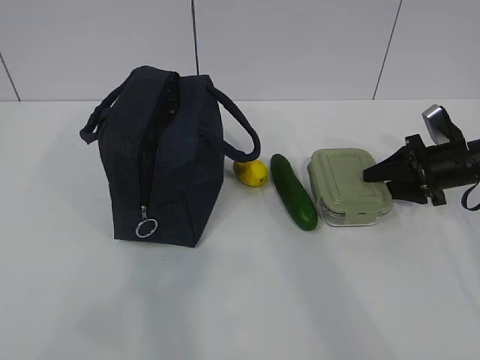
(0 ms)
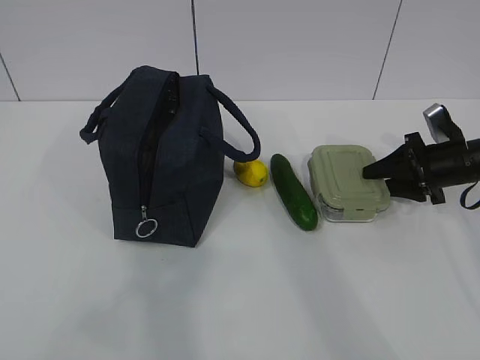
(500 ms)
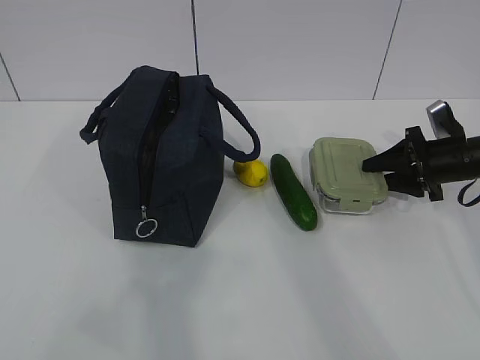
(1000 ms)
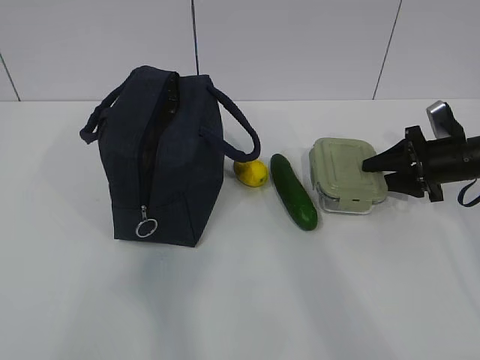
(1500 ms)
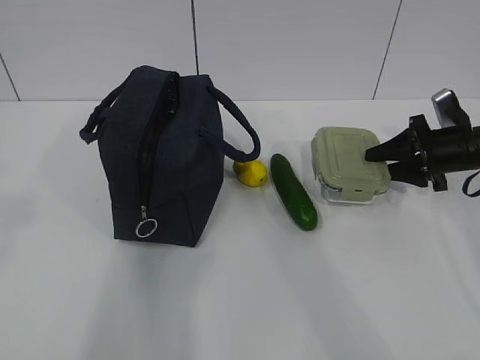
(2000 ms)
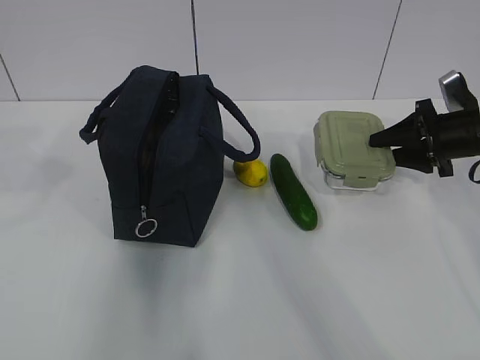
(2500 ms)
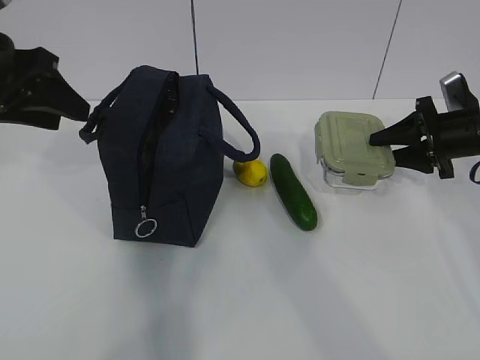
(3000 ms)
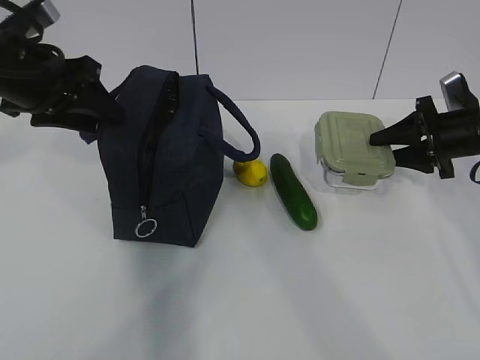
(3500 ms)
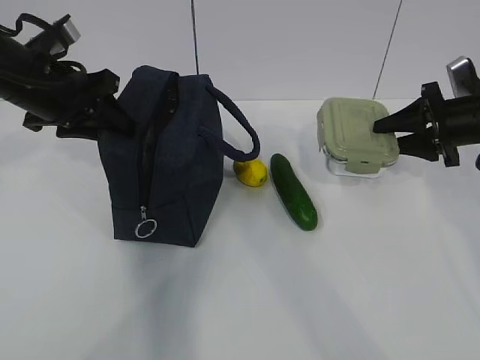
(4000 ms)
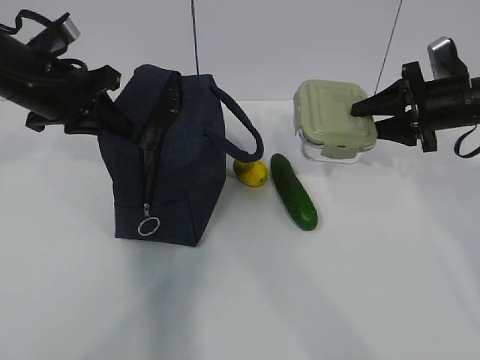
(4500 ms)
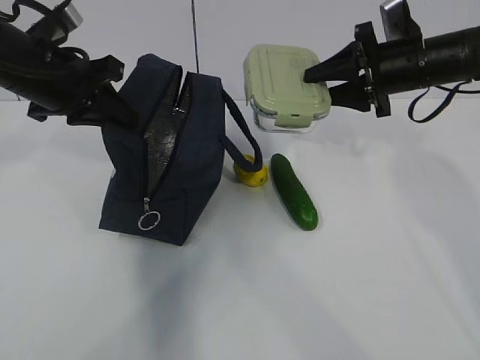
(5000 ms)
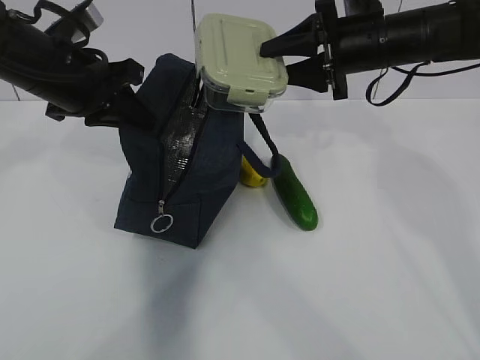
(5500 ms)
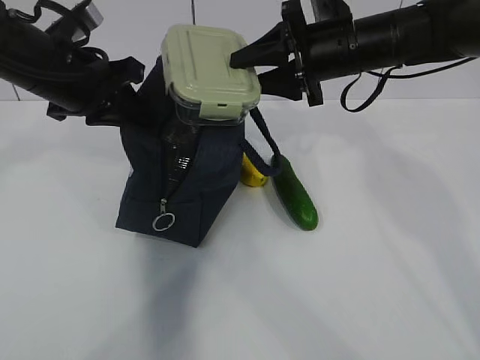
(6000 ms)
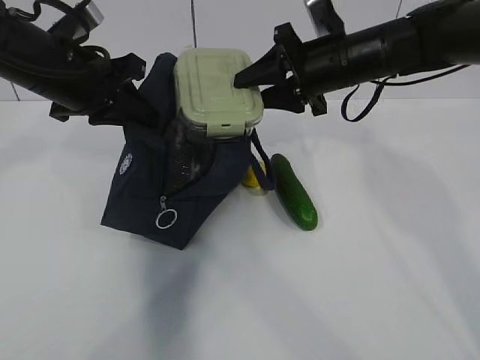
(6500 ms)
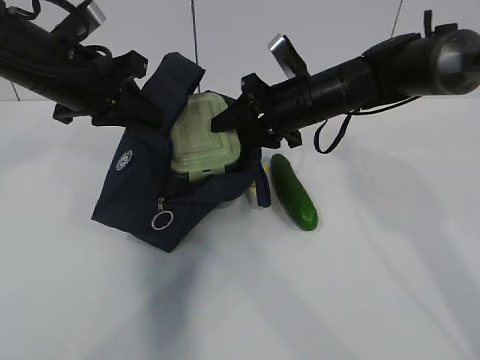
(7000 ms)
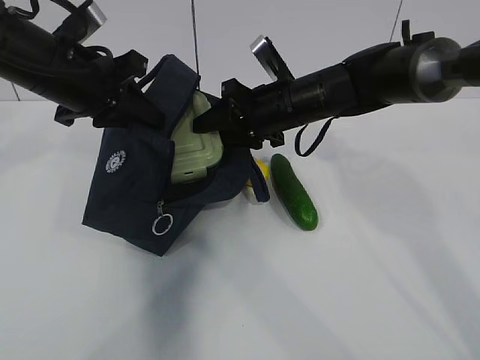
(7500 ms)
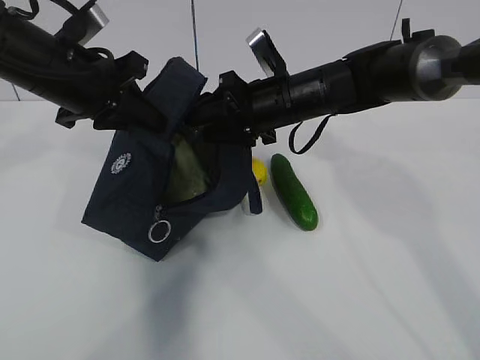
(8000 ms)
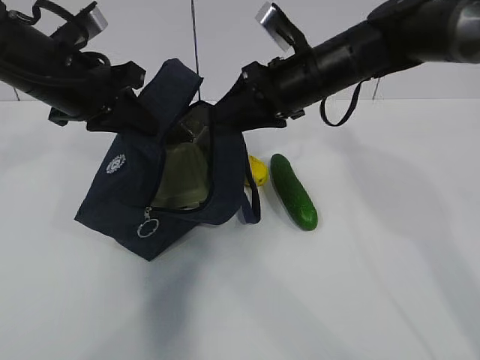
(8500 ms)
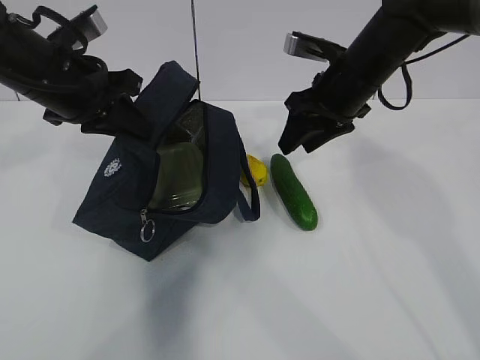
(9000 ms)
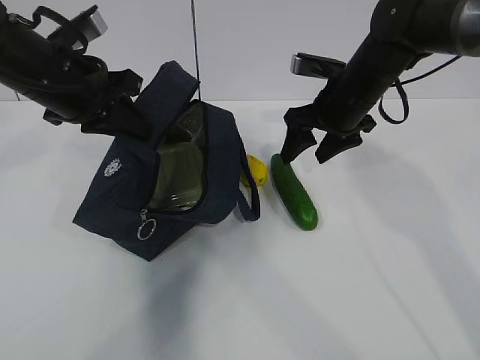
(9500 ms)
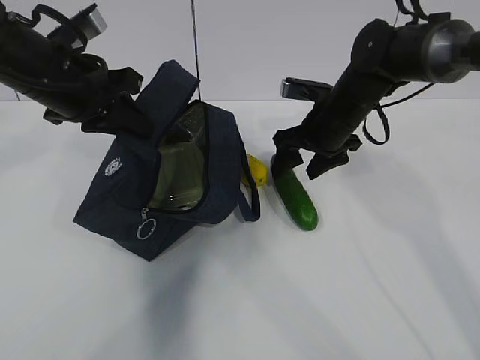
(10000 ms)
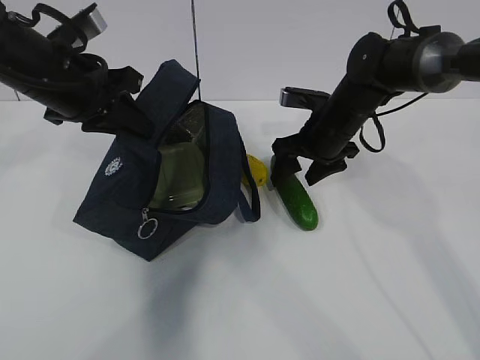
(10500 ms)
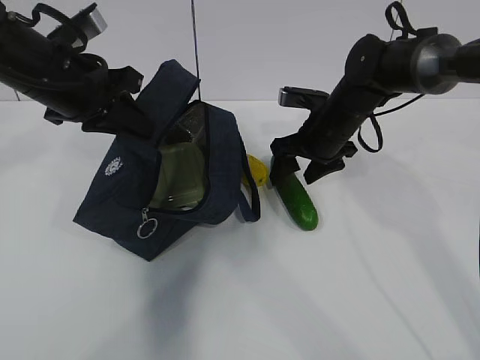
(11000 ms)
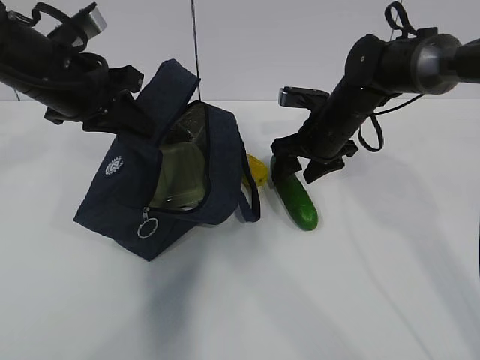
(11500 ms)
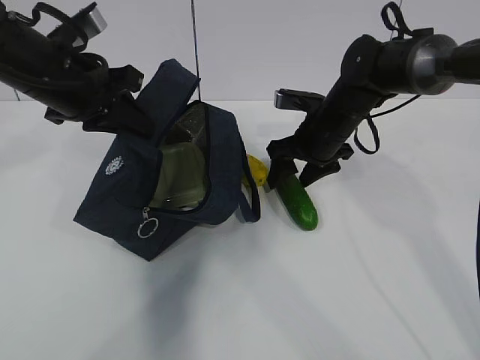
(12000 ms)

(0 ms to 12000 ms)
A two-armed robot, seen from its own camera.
Step, 0 ms - 2500 ms: Grab the lunch bag with your left hand.
Step, 3500 ms - 4500 ms: Place it into the bag with your right hand.
Step, 5000 ms - 9000 ms: Grab the cucumber with your right hand.
Step, 9500 ms - 11000 ms: Place it into the bag with your right hand.
2000 ms - 4000 ms: The left gripper shifts approximately 30 cm forward and downward.
4000 ms - 6000 ms: The left gripper closes its fingers. Meanwhile the right gripper shifts roughly 20 cm to the left and upward.
6000 ms - 8000 ms: The right gripper goes roughly 10 cm downward and to the left.
8000 ms - 10000 ms: The right gripper moves to the right, about 5 cm.
10000 ms - 12000 ms: There are only small adjustments of the grippers.

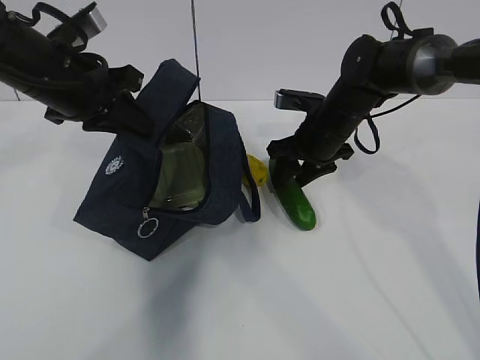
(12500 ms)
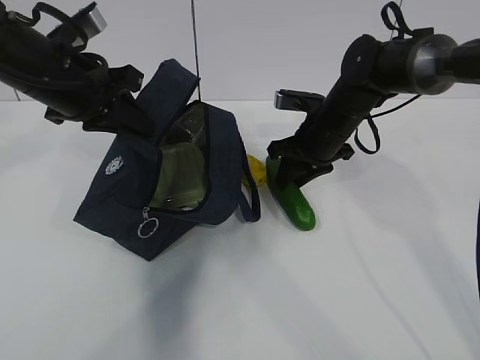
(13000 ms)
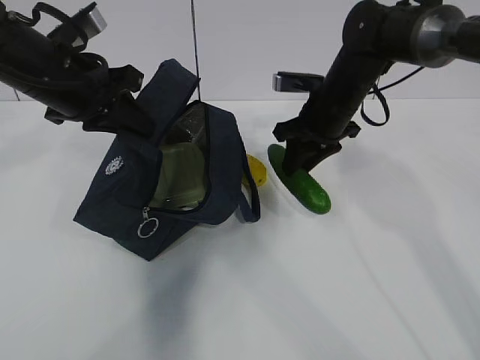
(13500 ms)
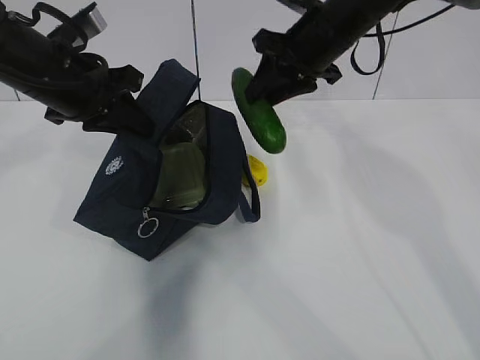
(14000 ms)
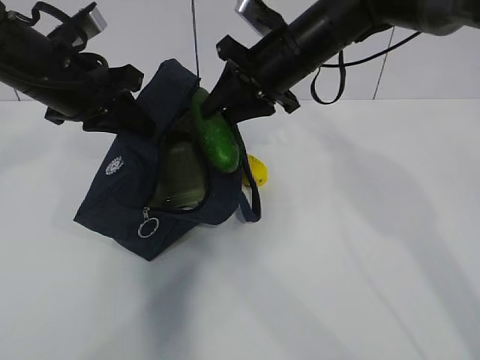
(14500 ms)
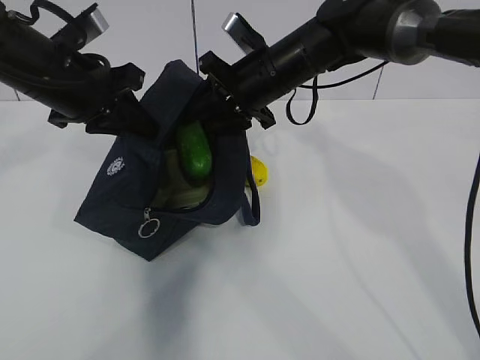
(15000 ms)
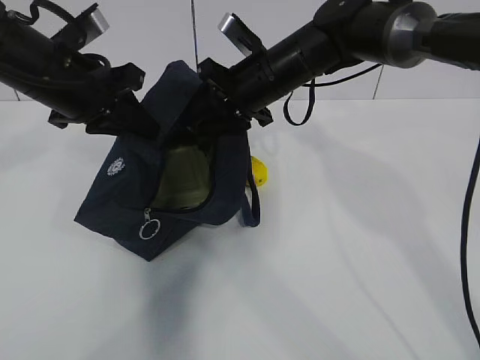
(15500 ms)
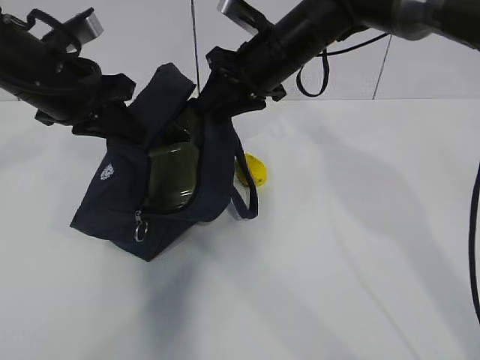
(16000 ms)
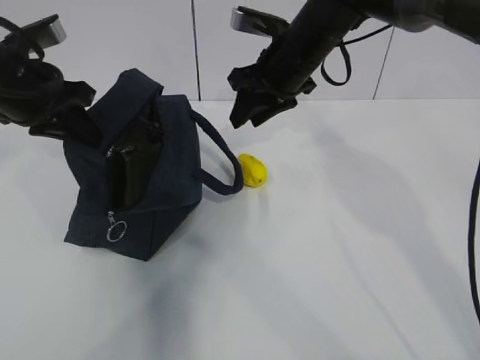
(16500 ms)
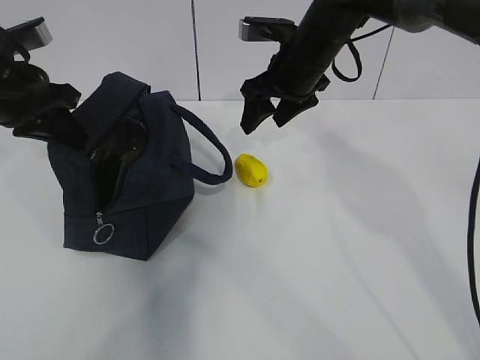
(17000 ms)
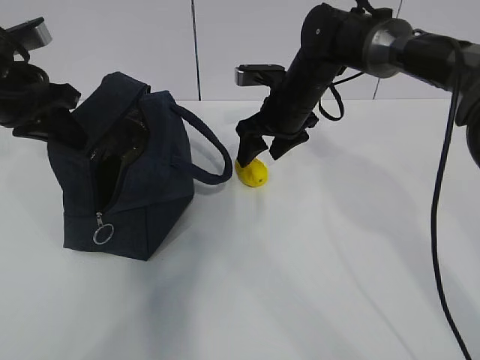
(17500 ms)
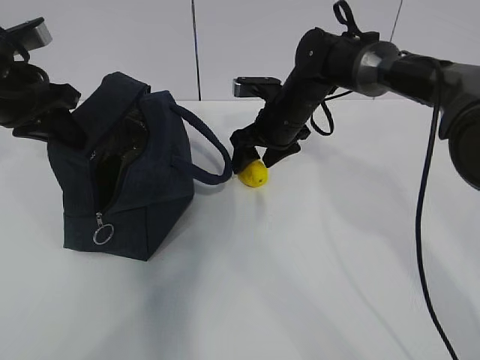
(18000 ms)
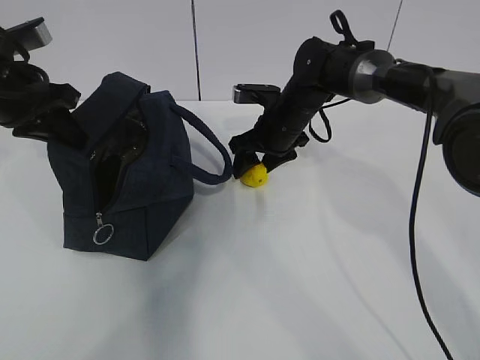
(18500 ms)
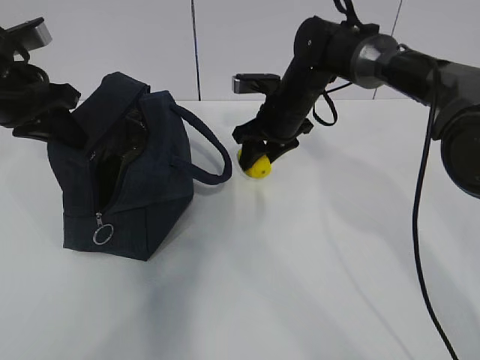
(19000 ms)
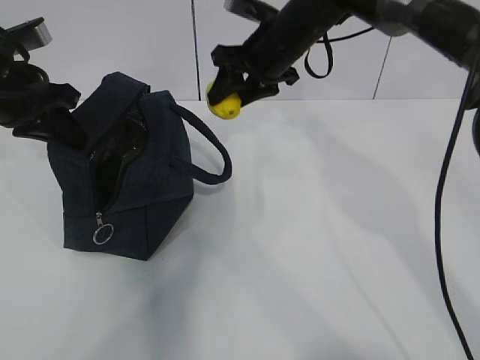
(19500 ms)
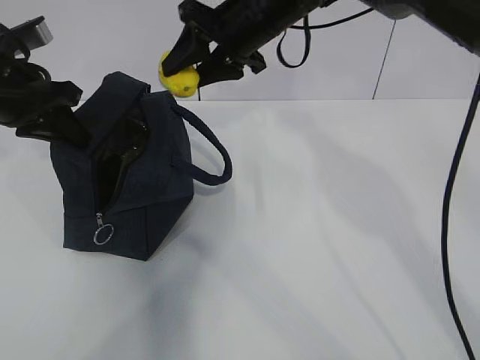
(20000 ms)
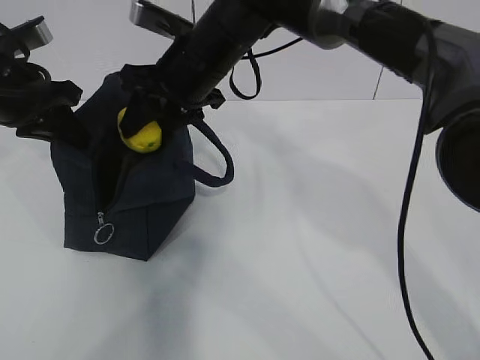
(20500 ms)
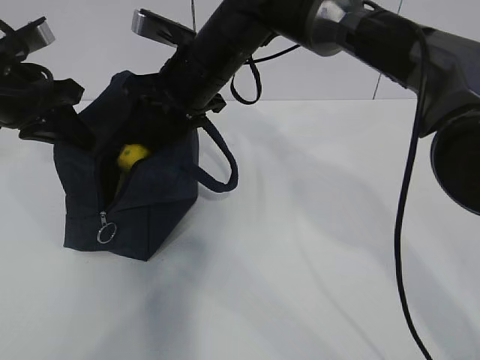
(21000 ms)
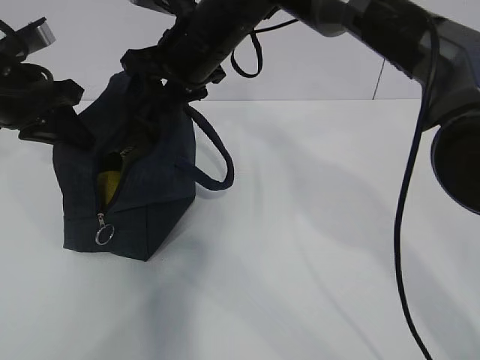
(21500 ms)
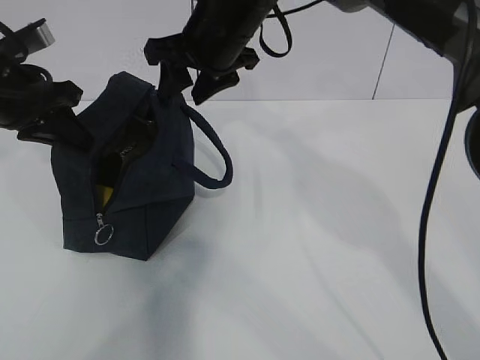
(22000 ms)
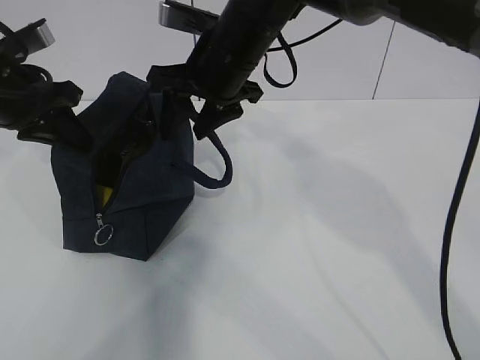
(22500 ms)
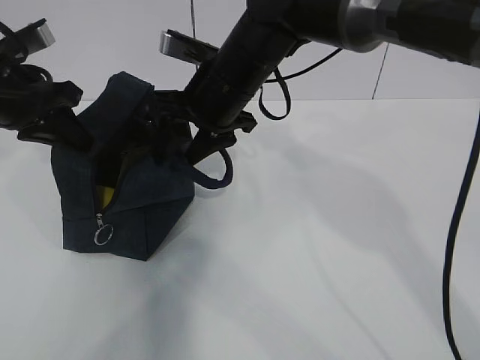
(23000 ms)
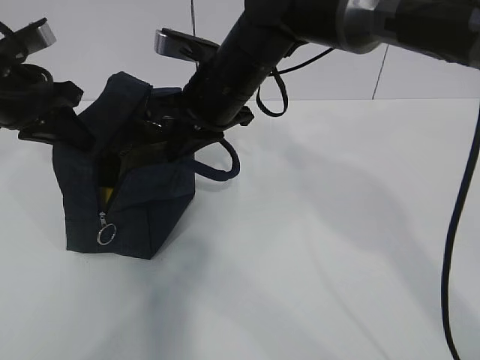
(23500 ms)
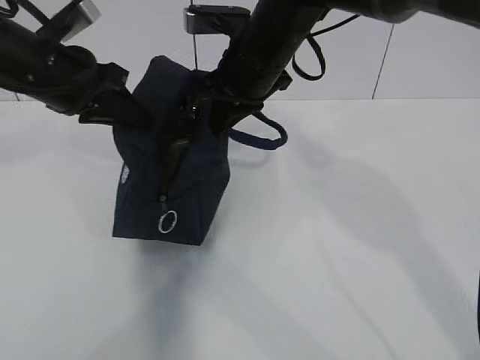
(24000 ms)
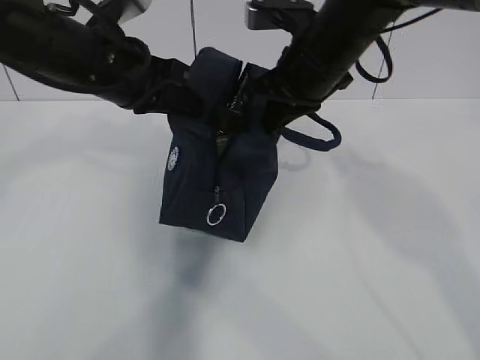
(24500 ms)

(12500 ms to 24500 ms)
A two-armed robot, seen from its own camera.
Step, 16500 ms - 17500 ms: Grab the lunch bag with your right hand.
Step, 18500 ms - 20000 ms: Move the lunch bag to the right.
12500 ms - 14500 ms: The right gripper heads upward and to the left, covering some 15 cm.
14500 ms - 16500 ms: The left gripper moves to the left, about 5 cm.
16500 ms - 18500 ms: The right gripper travels downward by some 10 cm.
18500 ms - 20500 ms: The right gripper moves upward, to the left and backward, about 20 cm.
20500 ms - 22500 ms: There are only small adjustments of the grippers.
22500 ms - 24500 ms: Both grippers travel together to the right, approximately 10 cm. The right gripper closes its fingers.

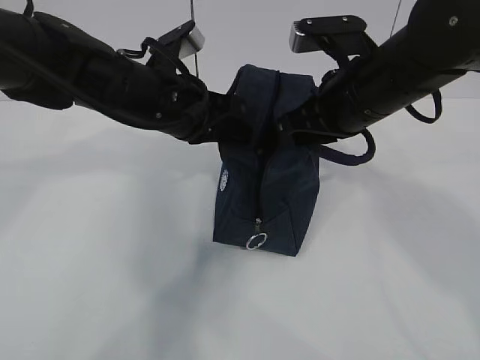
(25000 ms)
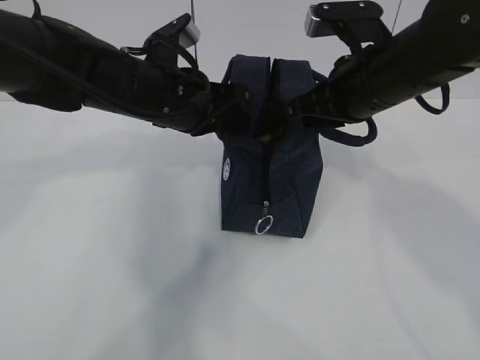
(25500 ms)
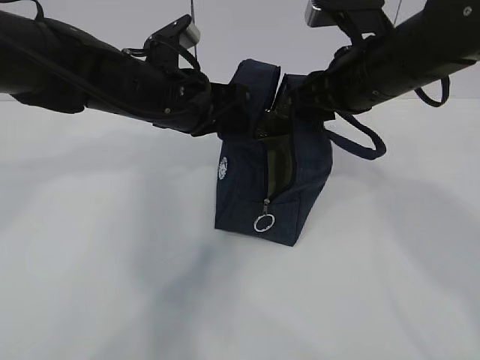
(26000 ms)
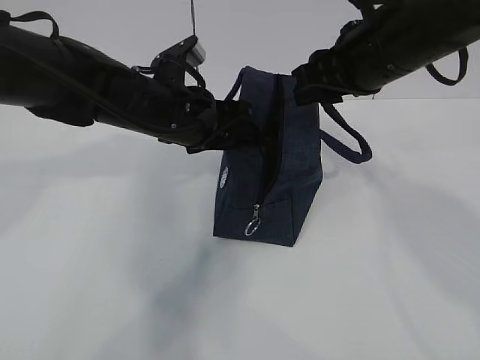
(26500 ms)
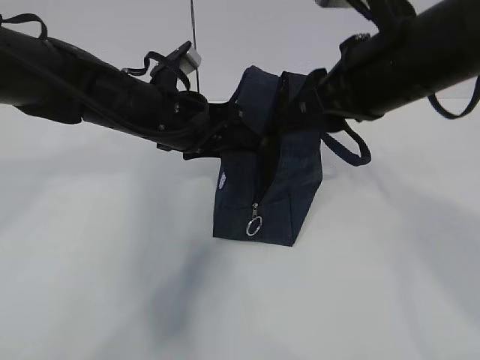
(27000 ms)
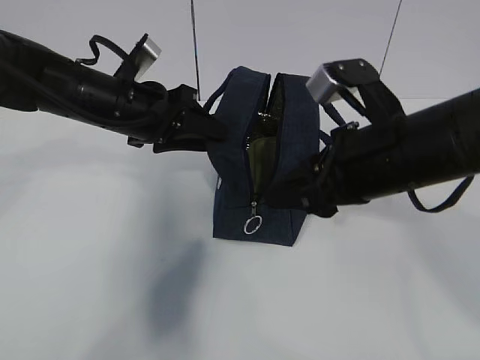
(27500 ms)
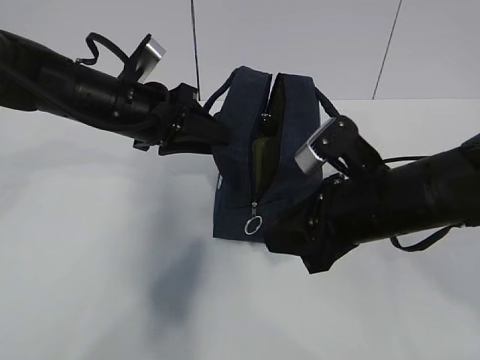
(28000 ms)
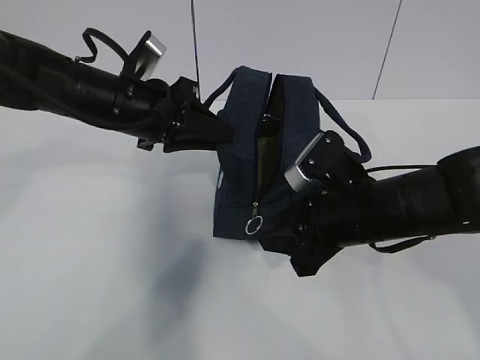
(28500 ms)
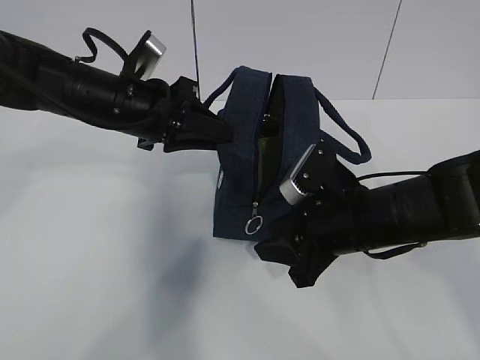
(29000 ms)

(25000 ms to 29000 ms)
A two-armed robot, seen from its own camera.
25000 ms - 27000 ms: The right gripper moves some 5 cm, and opens its fingers. The left gripper opens.
27000 ms - 29000 ms: The left gripper closes; the right gripper goes roughly 15 cm downward.
